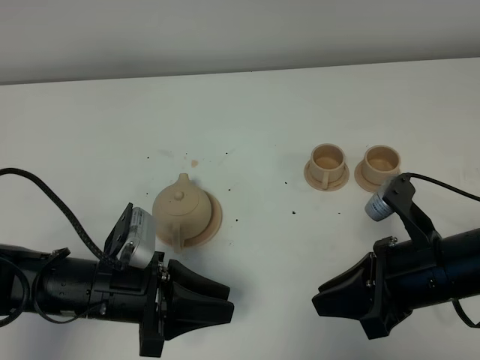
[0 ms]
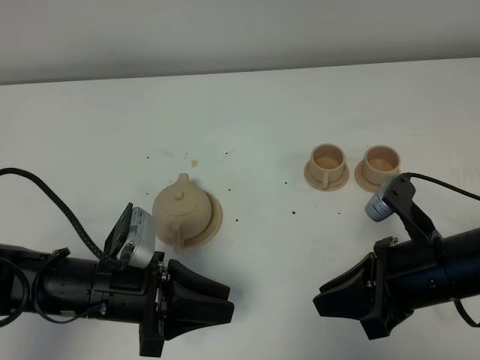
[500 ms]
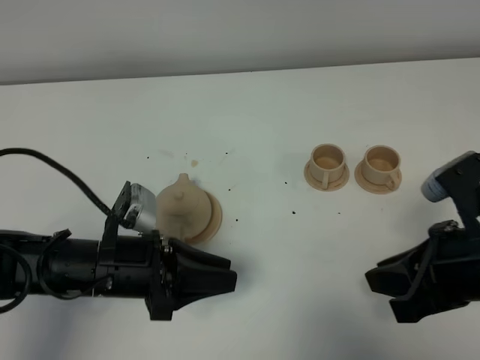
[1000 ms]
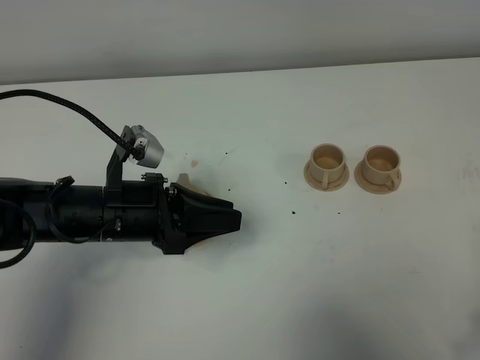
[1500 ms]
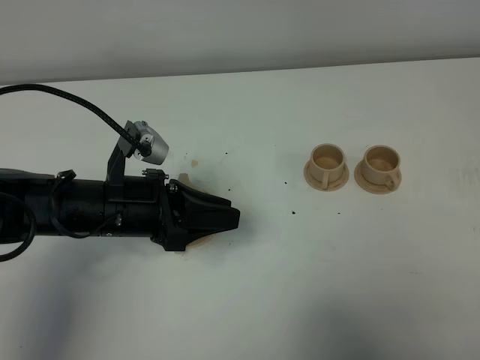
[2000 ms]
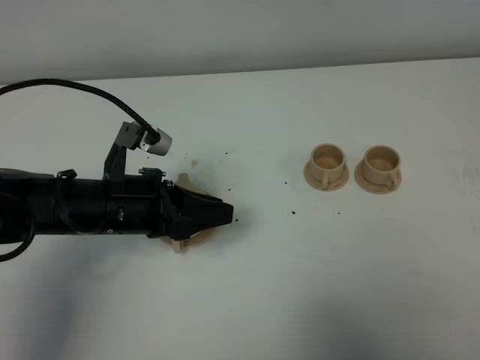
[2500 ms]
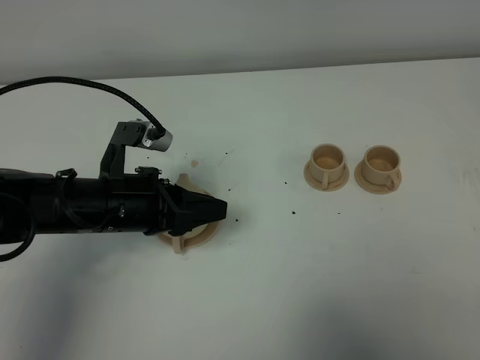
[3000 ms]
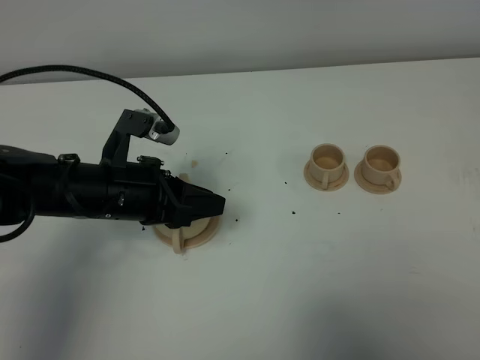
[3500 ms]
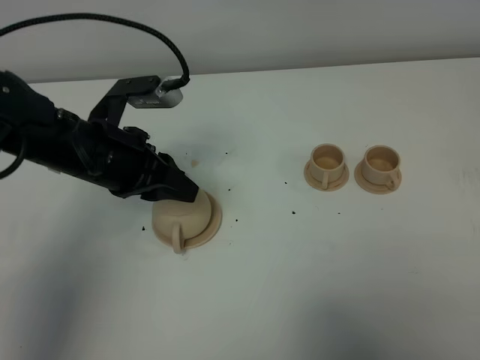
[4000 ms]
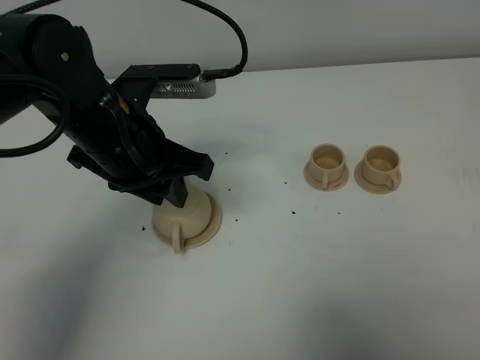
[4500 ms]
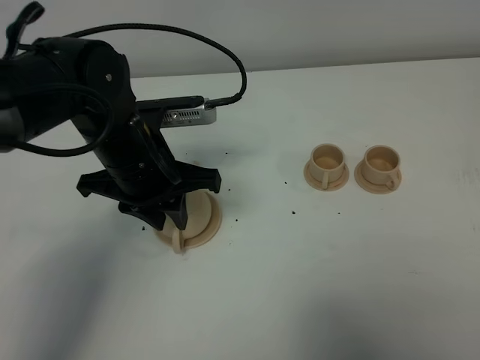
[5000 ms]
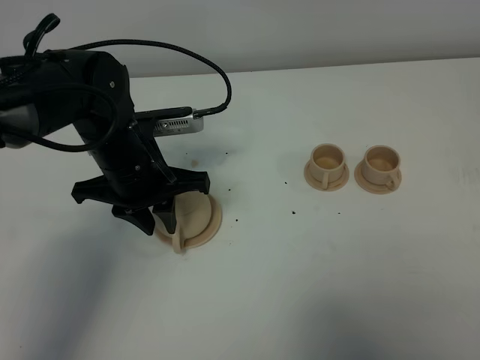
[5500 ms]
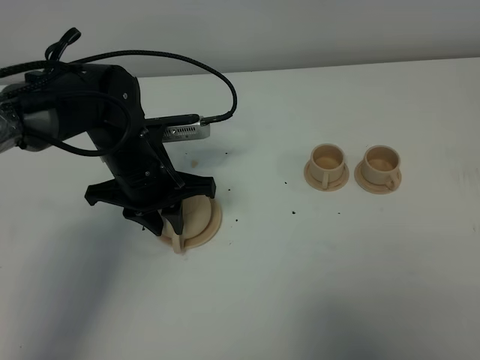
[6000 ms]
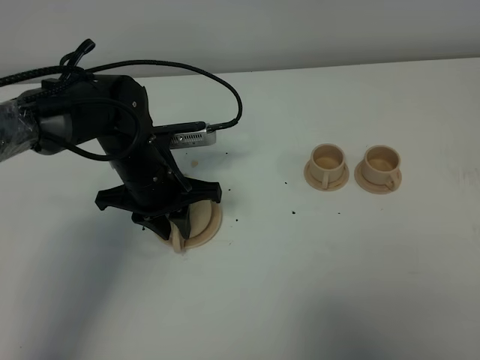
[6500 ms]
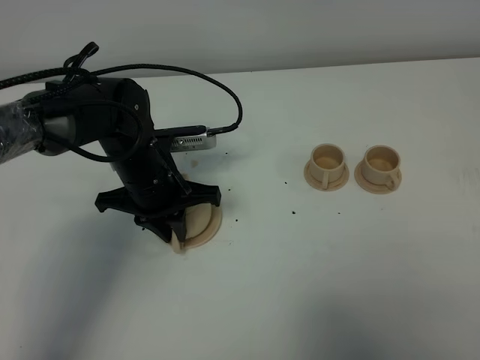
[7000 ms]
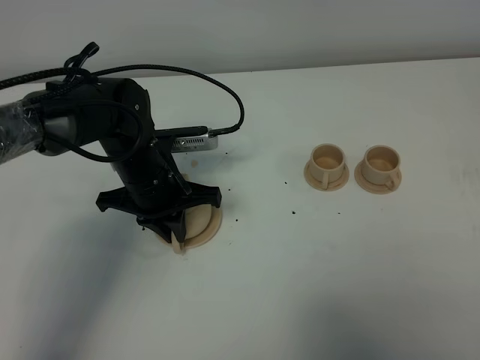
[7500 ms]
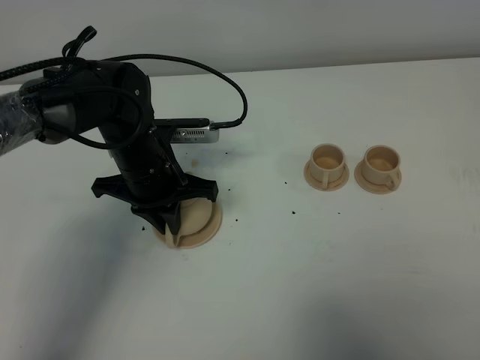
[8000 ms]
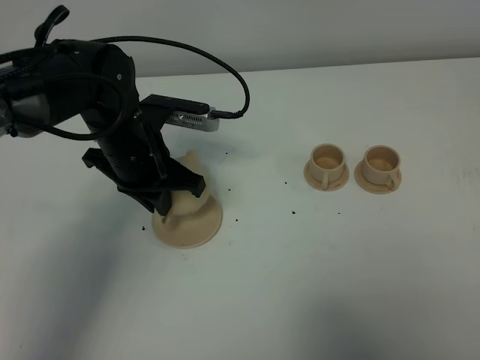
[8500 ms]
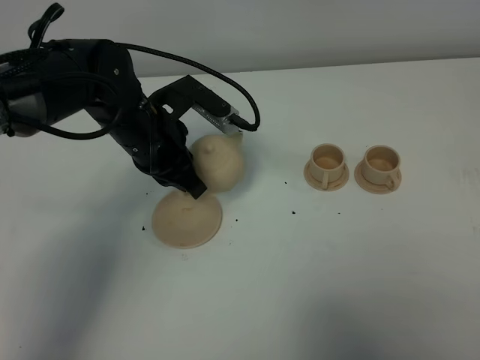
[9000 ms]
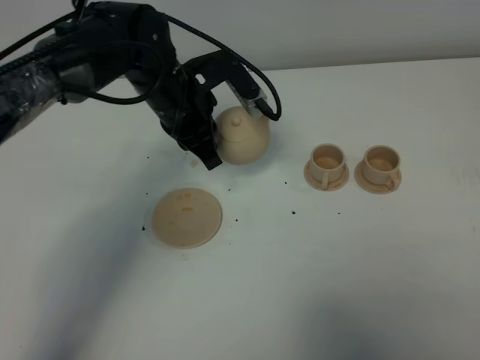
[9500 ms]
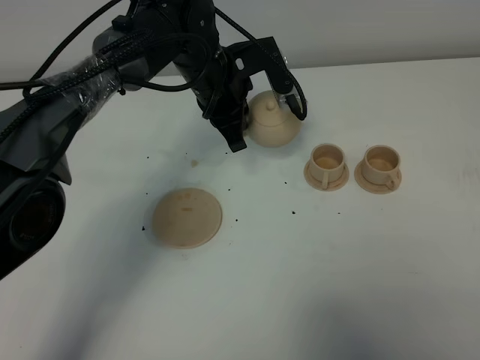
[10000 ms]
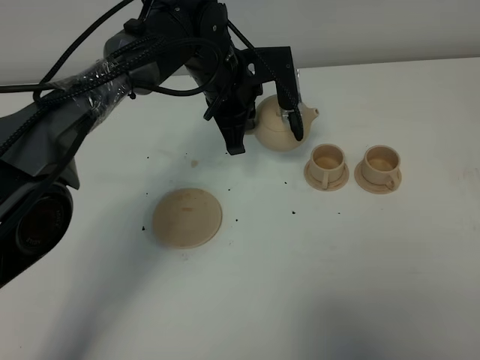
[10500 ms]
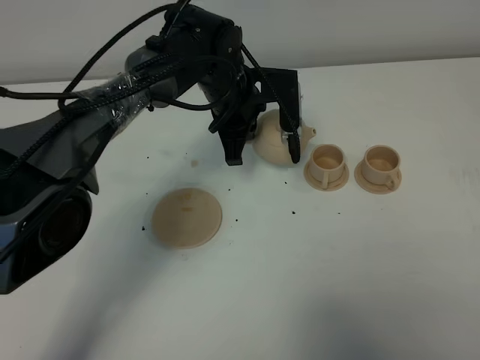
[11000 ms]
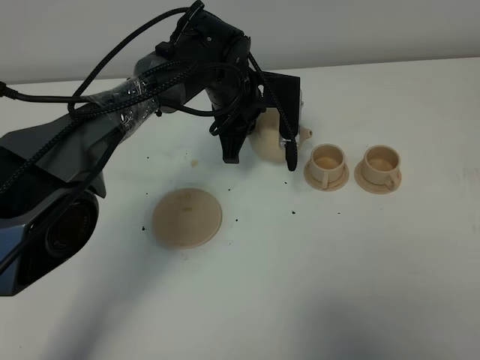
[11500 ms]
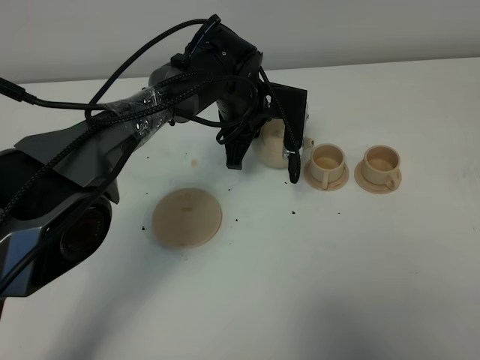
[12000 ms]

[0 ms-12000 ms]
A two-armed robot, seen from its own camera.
Task of the whole recording: grasp the brown teapot and pour the tea into the two brown teacups one by one, put the brown teapot back in its original place.
Step, 0 ms to 8000 ms: Pick up the teapot with the left gripper.
0 ms to 2000 ms: The left gripper moves forward, approximately 5 cm. Meanwhile the right gripper travels backward, to the right and upward by approximately 20 cm.
2000 ms to 4000 ms: The left gripper goes some 10 cm upward and forward.
4000 ms to 6000 ms: The left gripper heads downward, covering some 5 cm.
6000 ms to 8000 ms: The left gripper closes.
8000 ms to 10000 ms: The left gripper heads forward and to the right, covering about 15 cm.
10000 ms to 12000 ms: The left gripper changes place by approximately 5 cm.

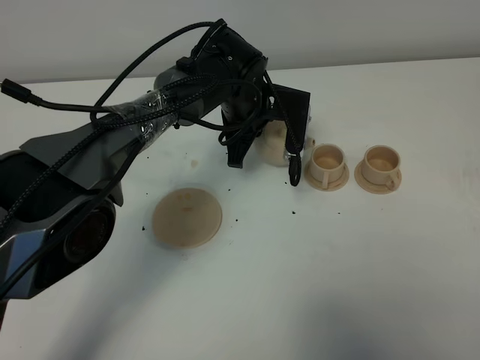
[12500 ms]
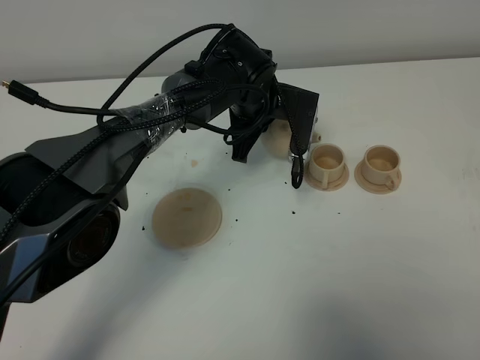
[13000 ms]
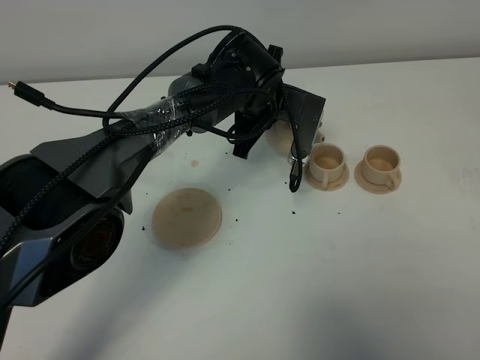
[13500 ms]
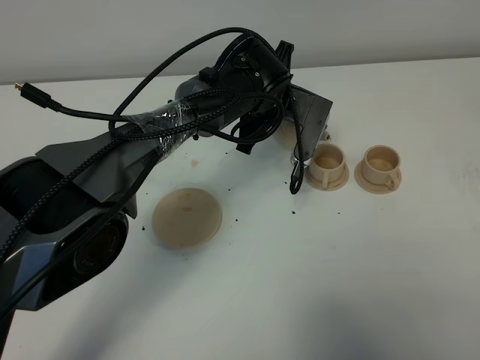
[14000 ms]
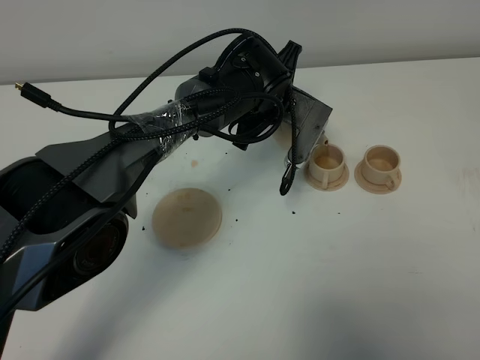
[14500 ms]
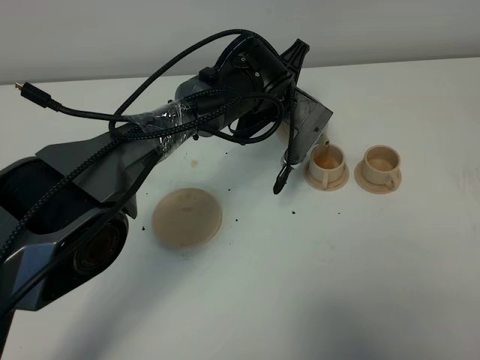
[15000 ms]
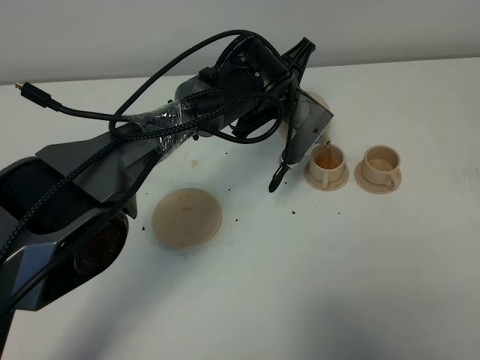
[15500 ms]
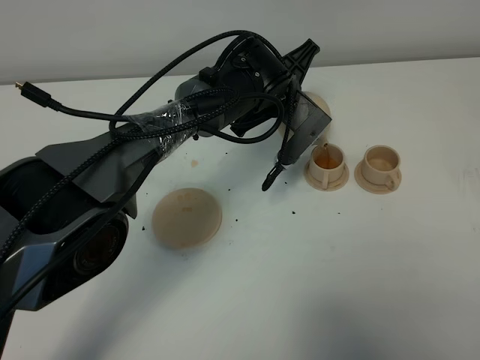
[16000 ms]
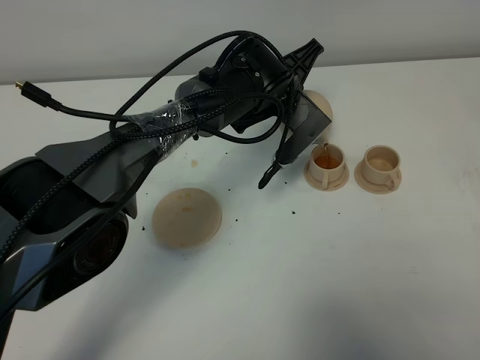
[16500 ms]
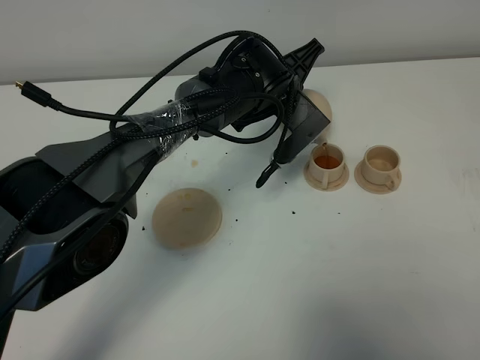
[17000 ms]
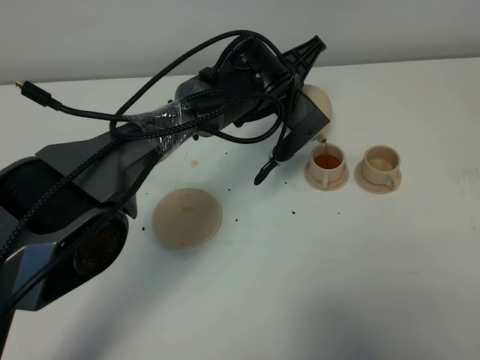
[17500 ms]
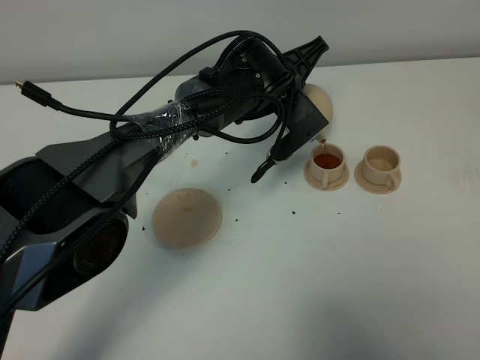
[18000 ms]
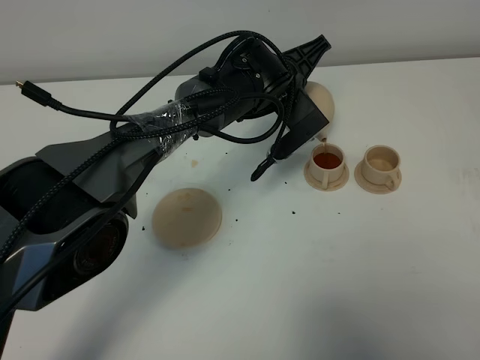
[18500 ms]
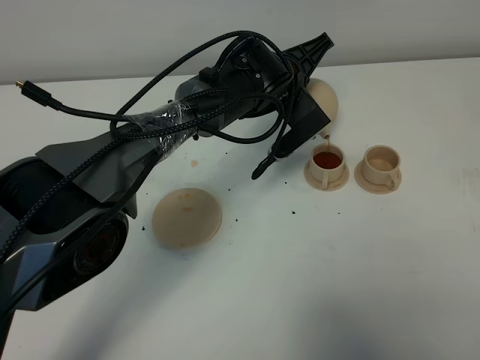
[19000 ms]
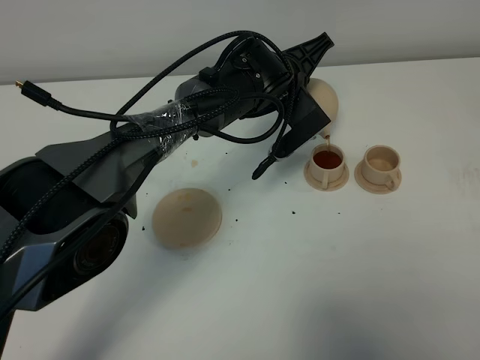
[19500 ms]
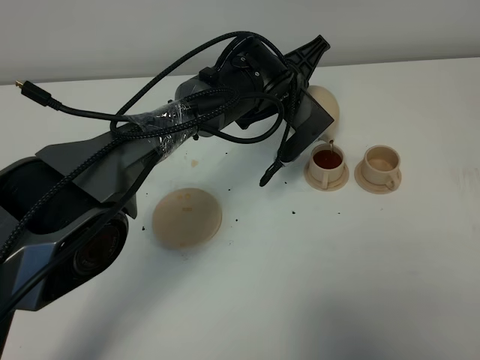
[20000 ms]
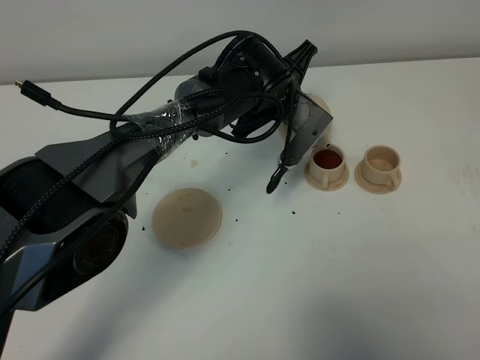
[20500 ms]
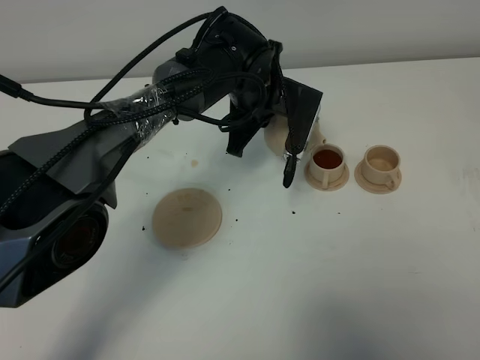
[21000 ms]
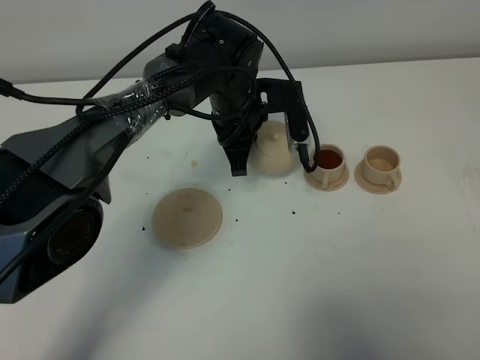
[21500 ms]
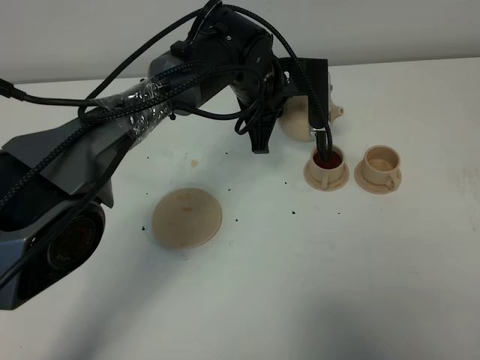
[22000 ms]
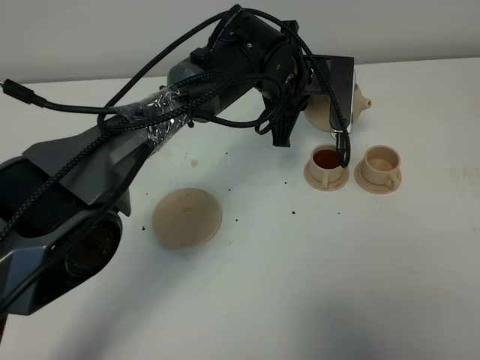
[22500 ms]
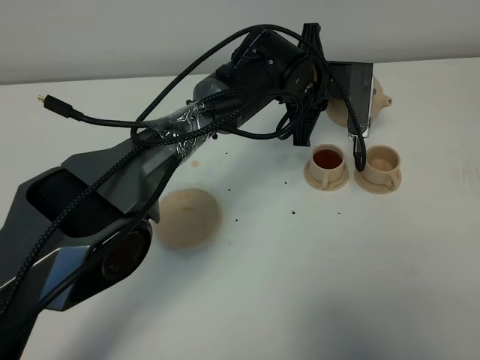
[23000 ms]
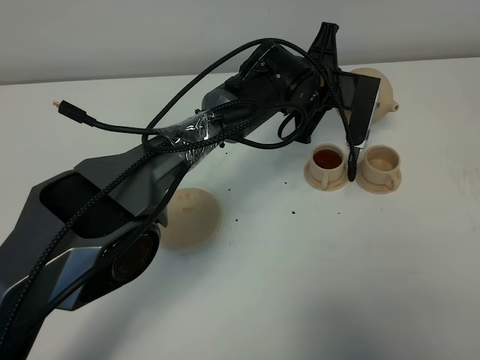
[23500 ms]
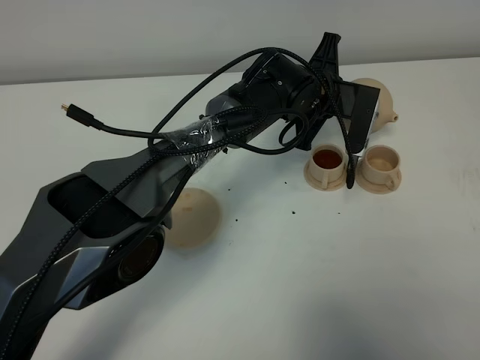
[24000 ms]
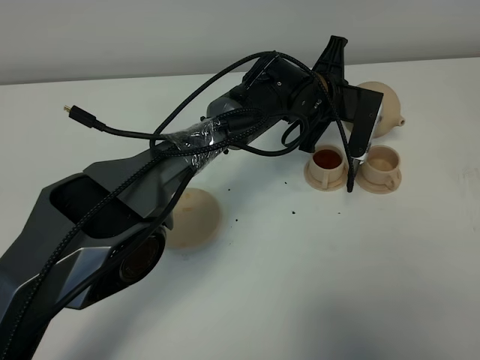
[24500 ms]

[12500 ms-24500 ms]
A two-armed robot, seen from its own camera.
Task of the whole recording: grasp the brown teapot and pour the tea into the two brown teacups one by one, put the brown teapot back in its original place.
14500 ms to 16500 ms: There are only small adjustments of the grippers.
16500 ms to 20500 ms: There are only small adjustments of the grippers.
22500 ms to 24500 ms: The left gripper shifts by some 5 cm.

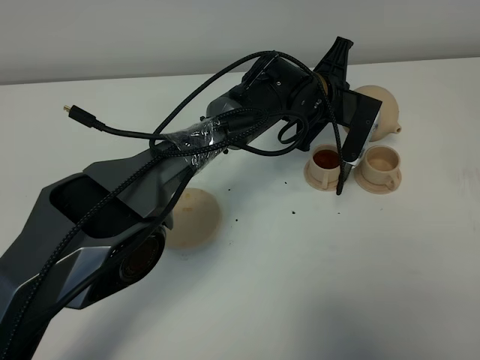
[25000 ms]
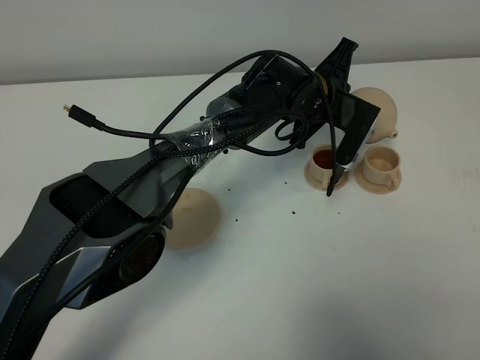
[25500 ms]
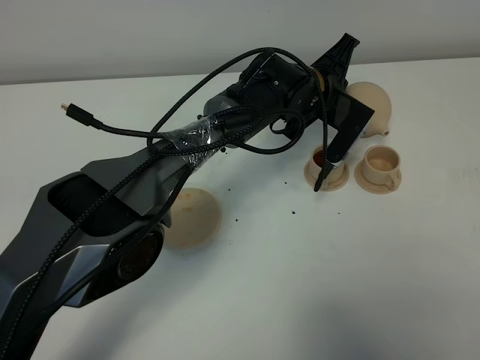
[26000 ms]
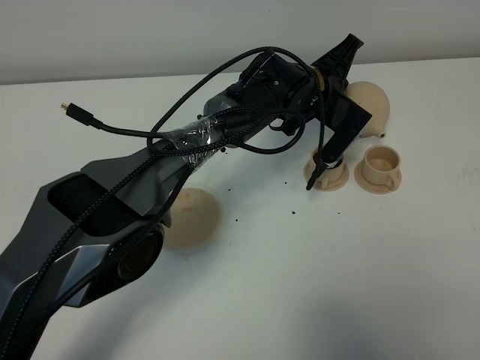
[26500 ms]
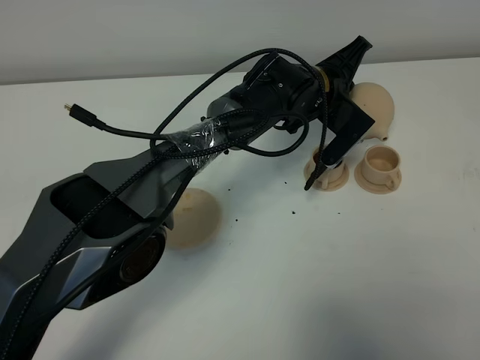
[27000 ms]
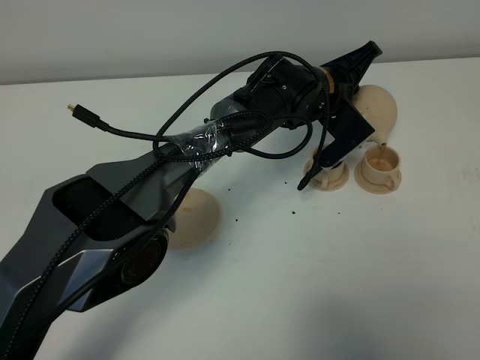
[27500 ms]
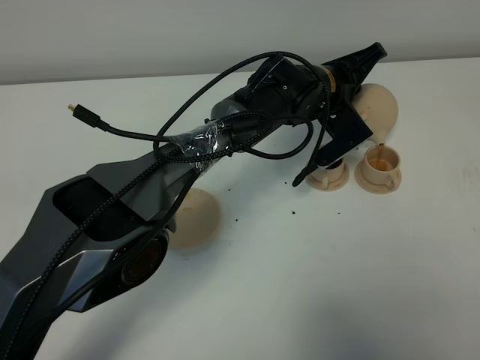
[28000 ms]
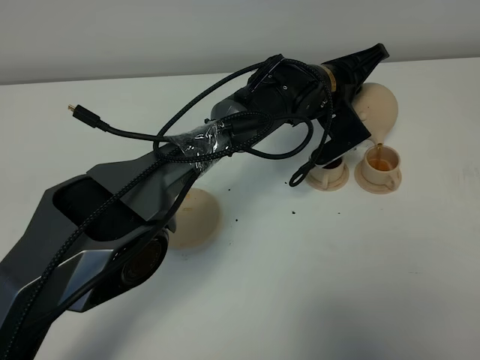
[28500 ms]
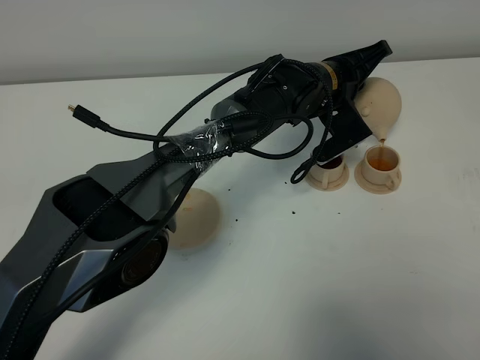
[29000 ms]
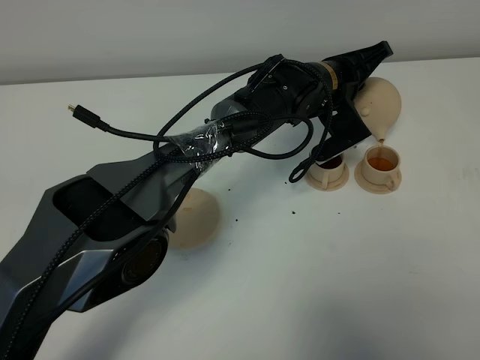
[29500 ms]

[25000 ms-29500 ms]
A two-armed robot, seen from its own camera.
Task of the whole recording: grasp the brown teapot and pour the tea into the two brown teacups one by one, put the brown teapot back in its original place.
27000 ms to 29500 ms: The grippers make only small movements.
